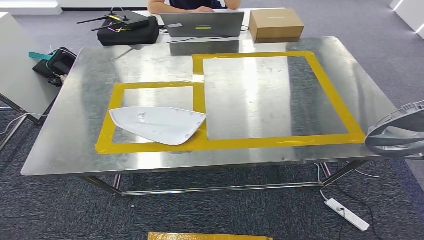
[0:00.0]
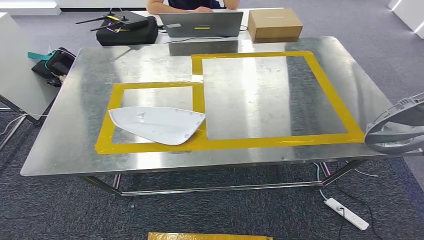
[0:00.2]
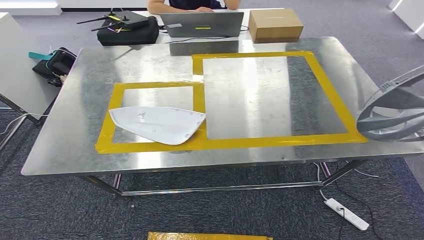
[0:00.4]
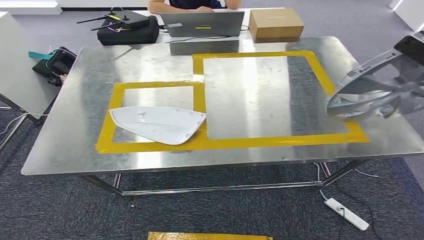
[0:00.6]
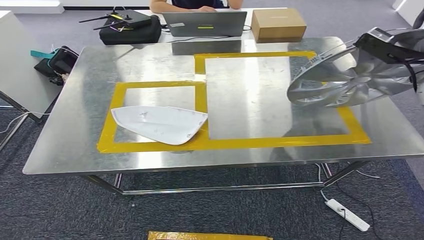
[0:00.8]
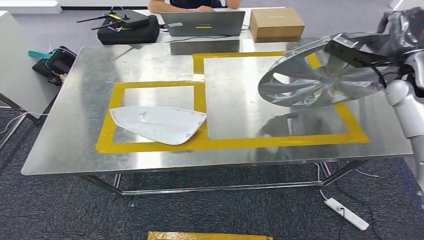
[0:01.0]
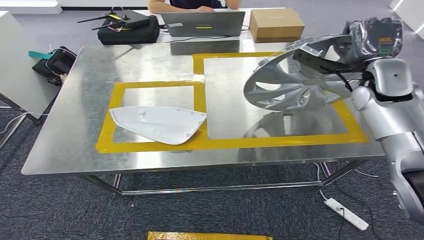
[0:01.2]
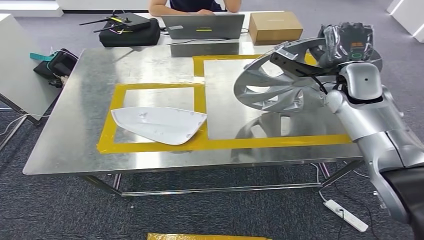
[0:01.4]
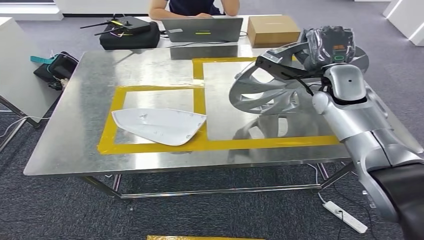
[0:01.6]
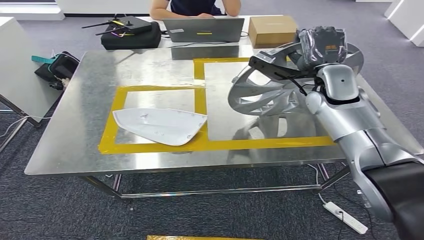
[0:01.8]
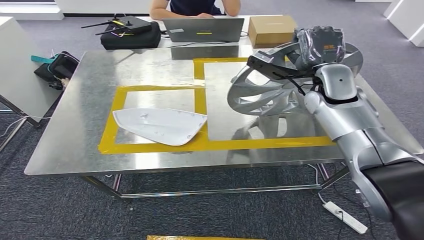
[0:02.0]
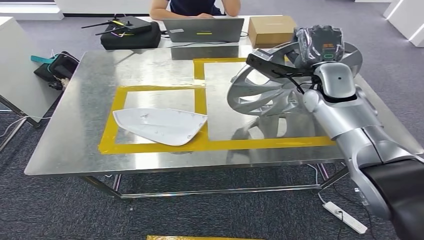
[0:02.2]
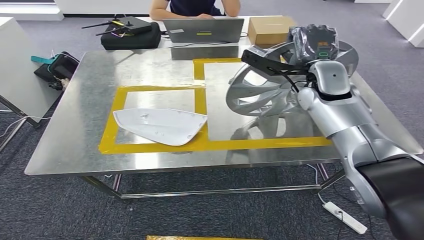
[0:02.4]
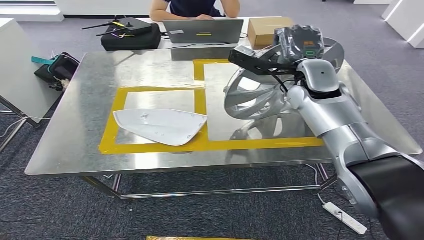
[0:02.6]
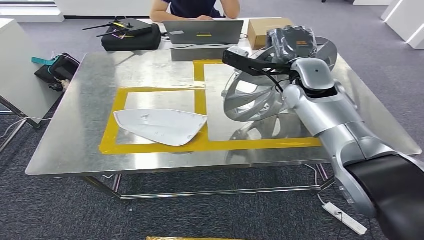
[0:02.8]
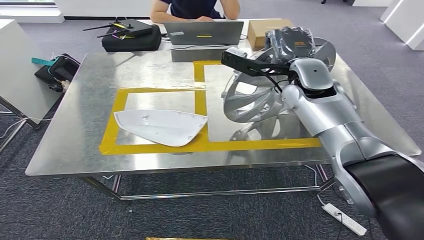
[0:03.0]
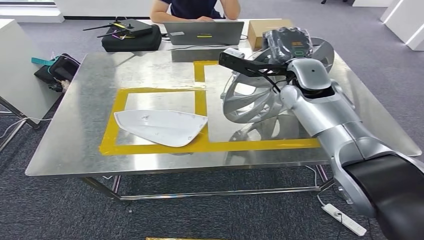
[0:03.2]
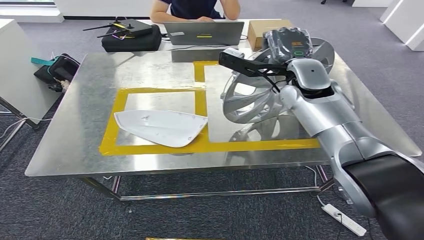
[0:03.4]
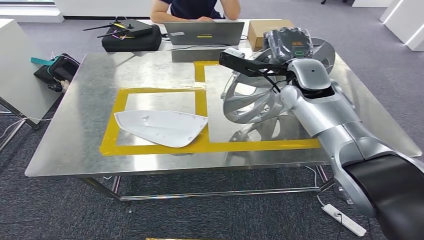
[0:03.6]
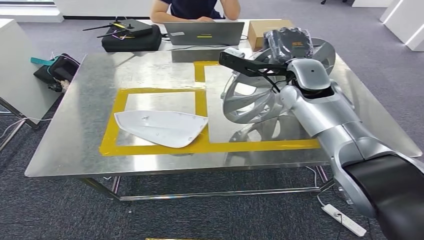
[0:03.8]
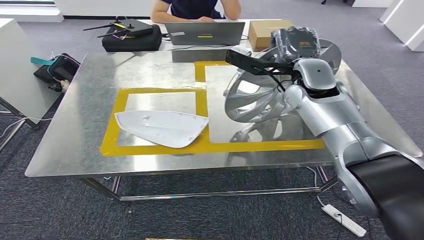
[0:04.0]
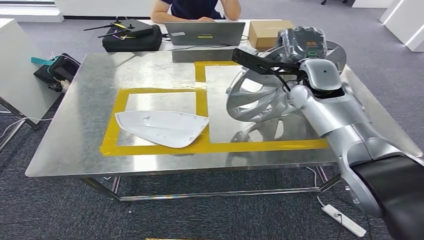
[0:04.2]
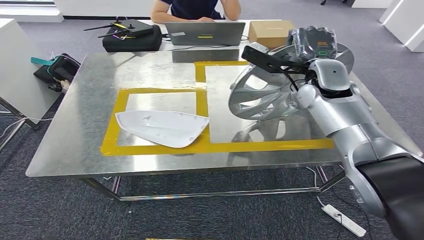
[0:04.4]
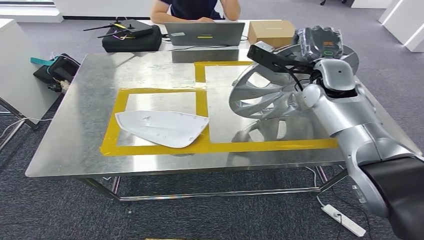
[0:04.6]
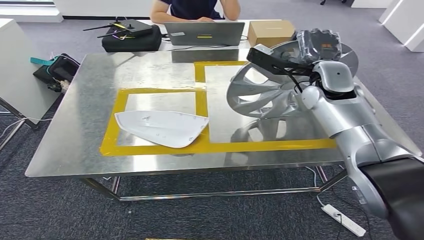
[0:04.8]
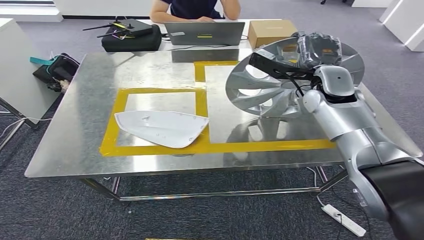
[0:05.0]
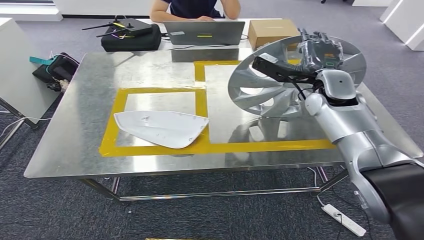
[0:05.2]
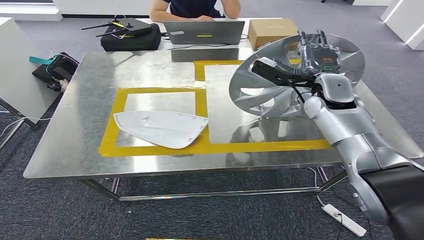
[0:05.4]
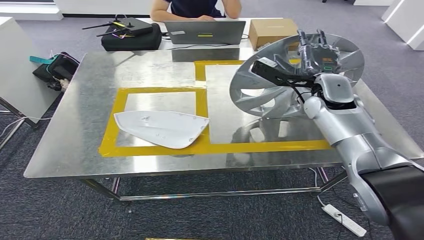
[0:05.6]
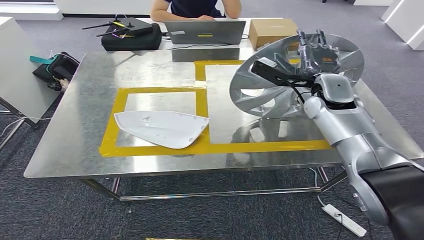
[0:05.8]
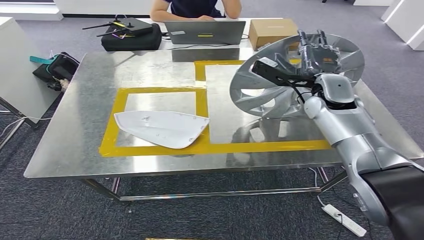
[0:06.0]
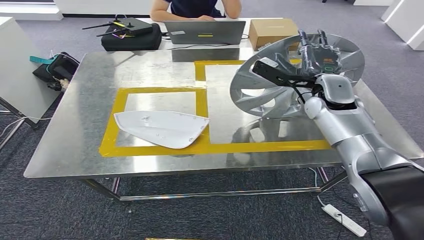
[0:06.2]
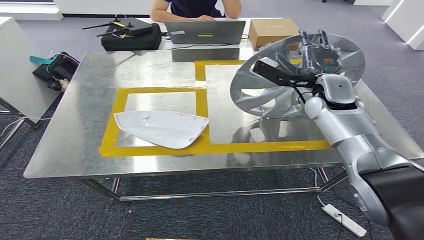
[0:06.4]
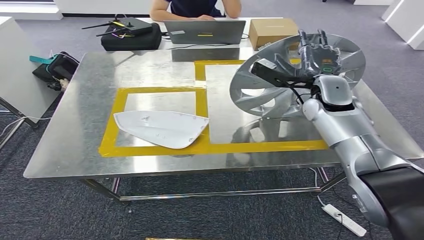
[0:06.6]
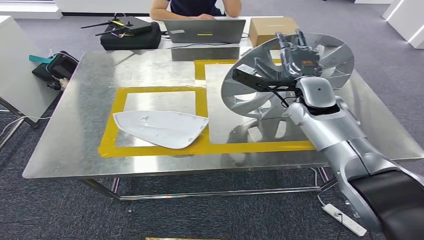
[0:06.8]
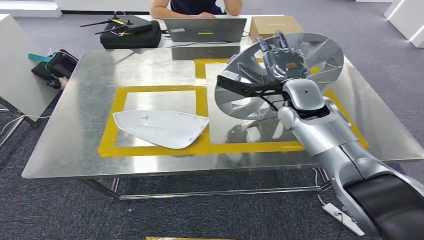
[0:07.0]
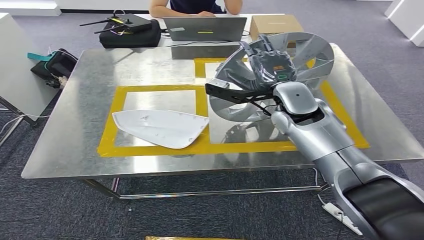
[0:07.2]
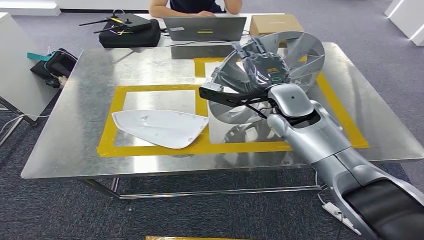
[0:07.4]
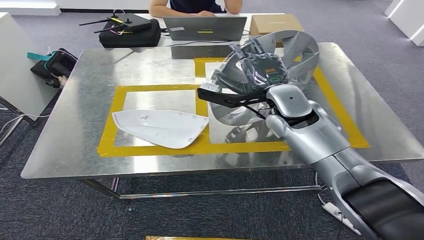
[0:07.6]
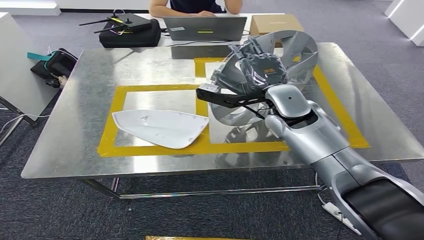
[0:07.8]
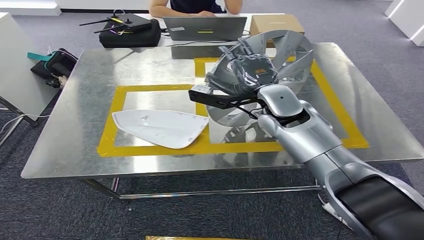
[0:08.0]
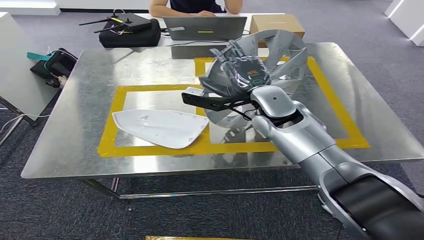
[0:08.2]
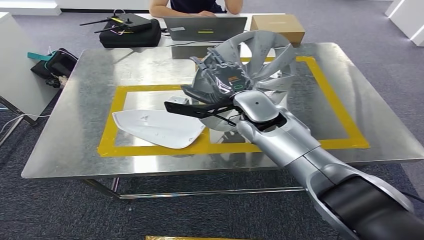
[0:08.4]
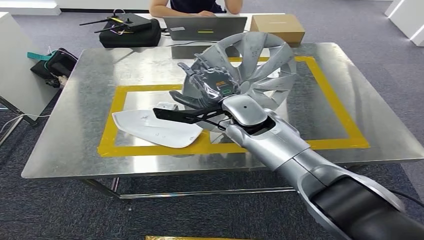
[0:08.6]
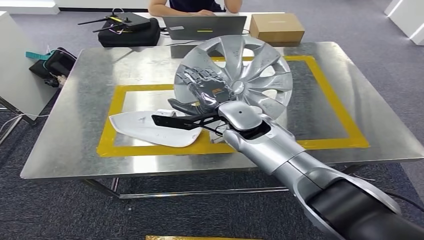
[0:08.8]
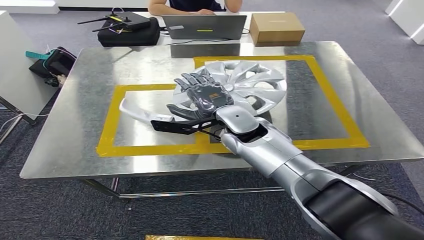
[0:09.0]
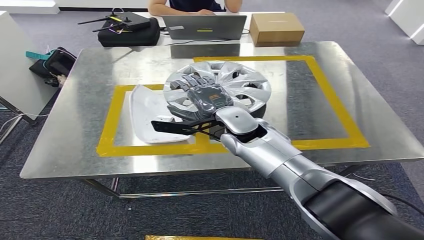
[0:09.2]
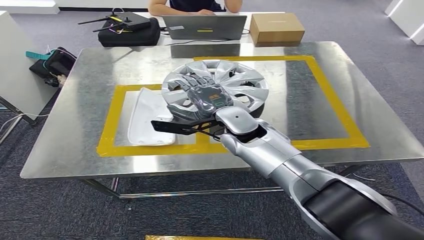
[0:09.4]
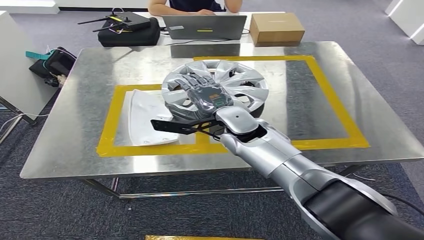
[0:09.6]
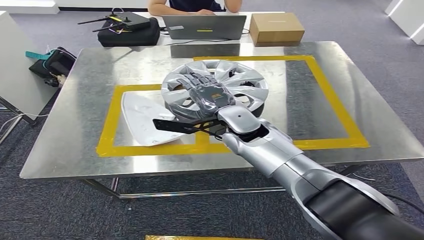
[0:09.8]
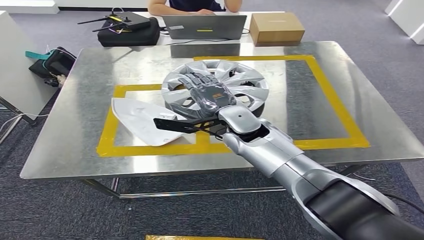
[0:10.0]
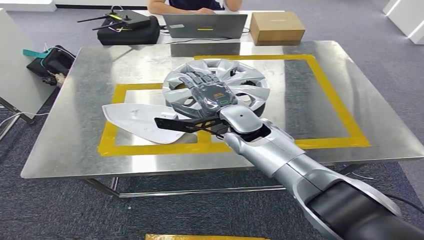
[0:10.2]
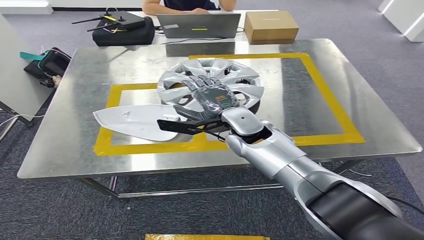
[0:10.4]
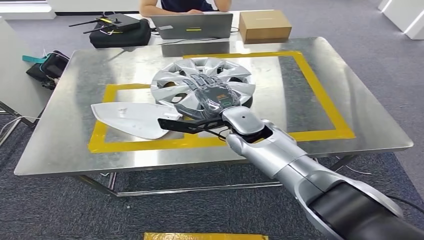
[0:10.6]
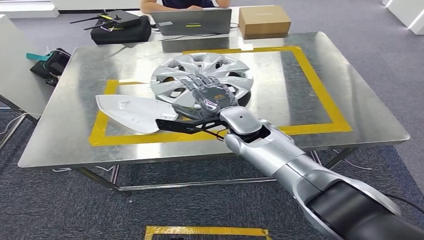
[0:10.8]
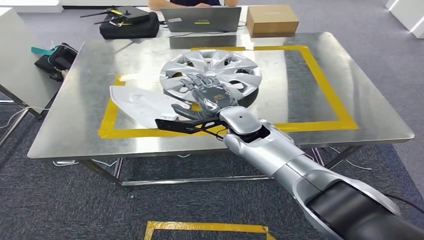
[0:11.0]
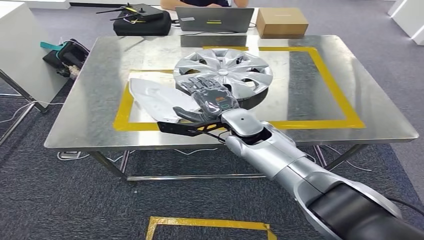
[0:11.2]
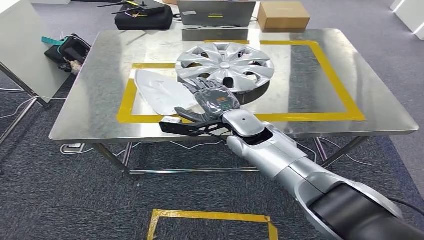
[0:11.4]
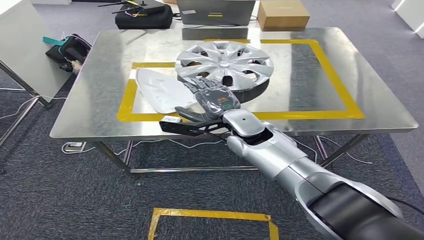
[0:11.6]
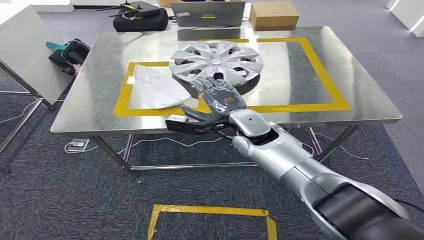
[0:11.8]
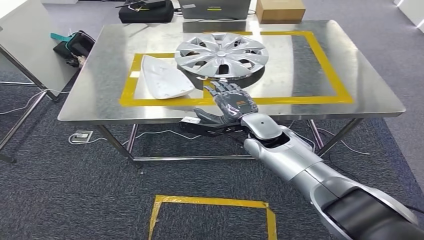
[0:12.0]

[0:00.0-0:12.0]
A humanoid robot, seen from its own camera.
Step, 0:00.0 to 0:11.2: Insert the small parts into the corresponding holes on the workbench.
0:03.0 to 0:04.4: The hands stay close to where they were, moving slightly.
0:04.4 to 0:06.0: The hands make only small movements.

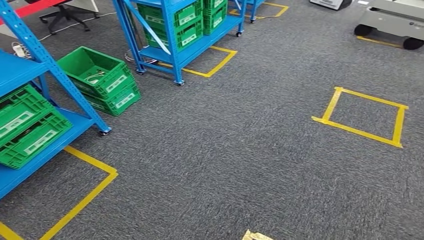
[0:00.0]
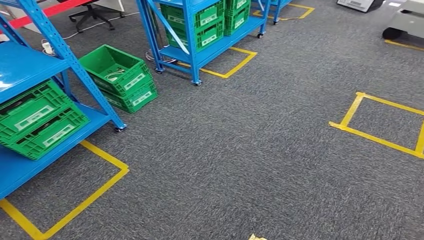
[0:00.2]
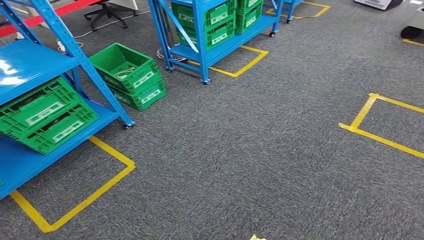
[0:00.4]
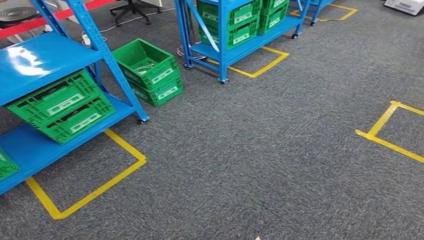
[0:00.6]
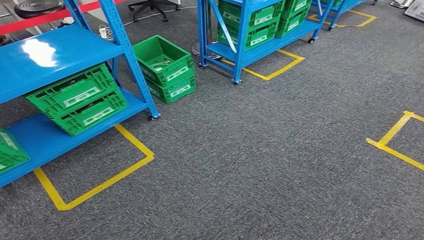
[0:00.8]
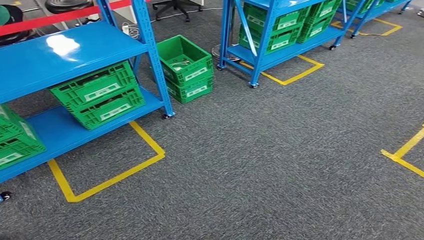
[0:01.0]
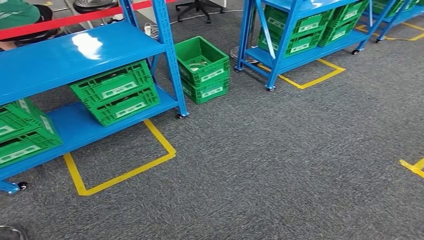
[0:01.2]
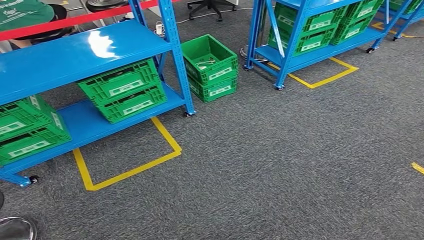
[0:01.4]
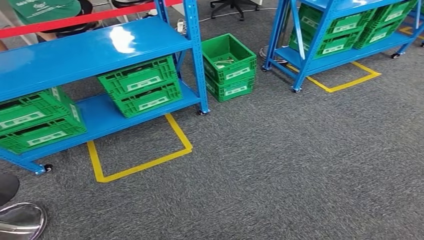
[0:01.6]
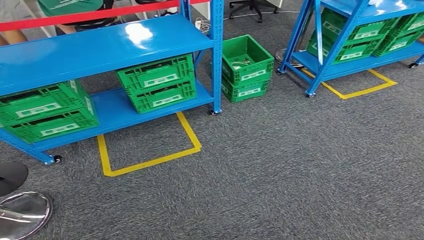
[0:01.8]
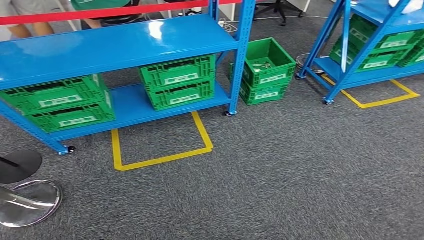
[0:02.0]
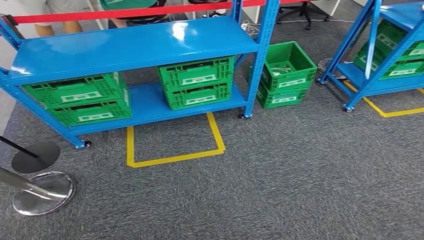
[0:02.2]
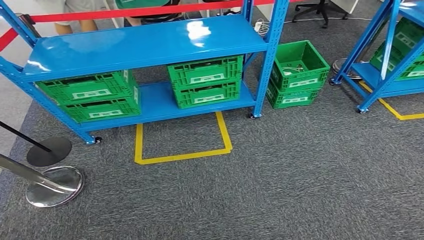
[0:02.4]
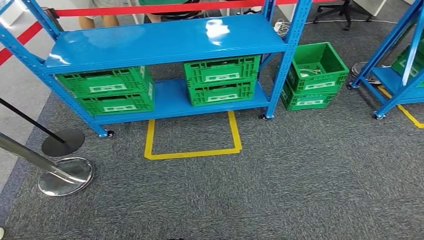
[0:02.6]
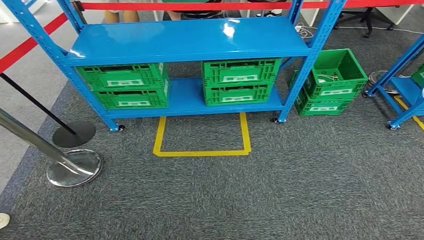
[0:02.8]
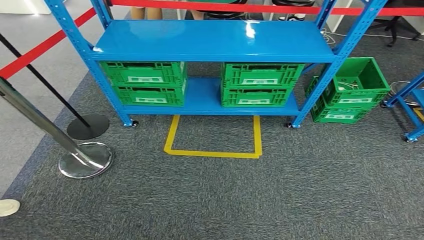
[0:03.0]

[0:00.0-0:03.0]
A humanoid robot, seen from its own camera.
Step, 0:00.0 to 0:03.0: Move to the initial position of the workbench.
